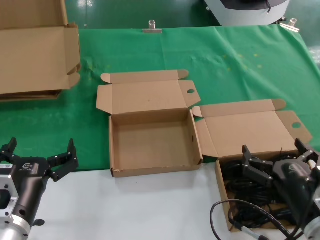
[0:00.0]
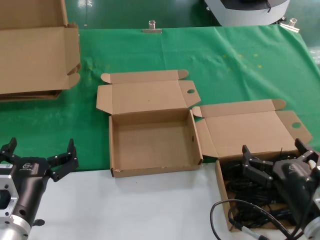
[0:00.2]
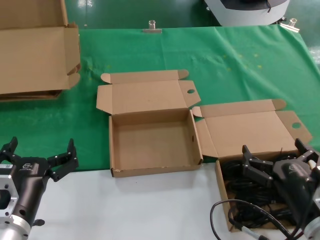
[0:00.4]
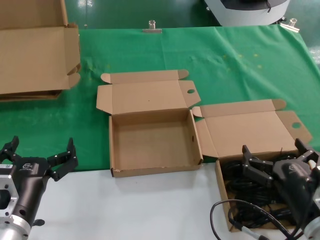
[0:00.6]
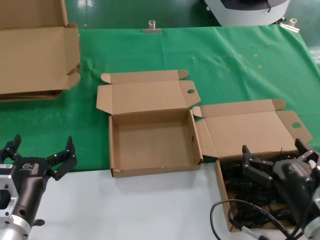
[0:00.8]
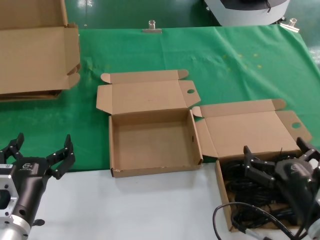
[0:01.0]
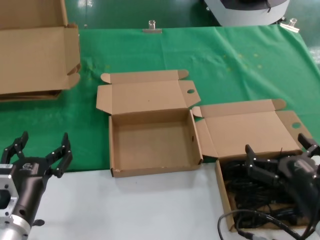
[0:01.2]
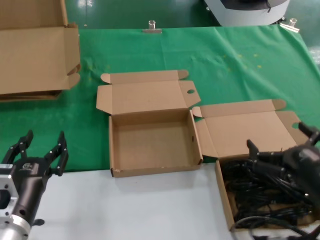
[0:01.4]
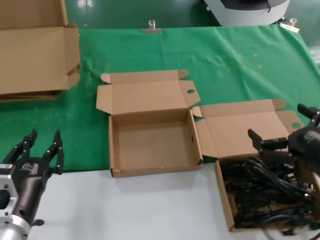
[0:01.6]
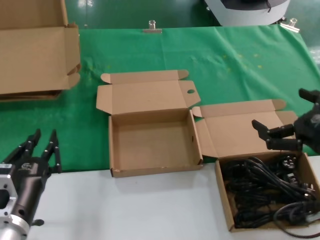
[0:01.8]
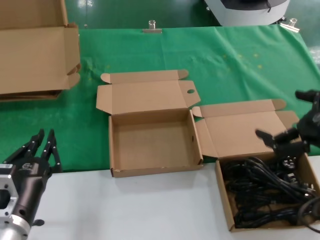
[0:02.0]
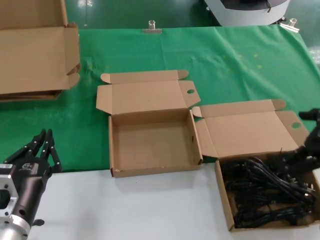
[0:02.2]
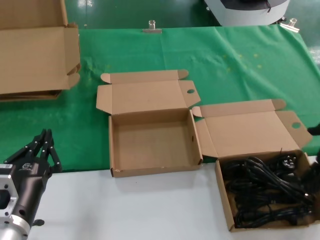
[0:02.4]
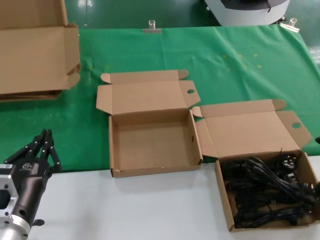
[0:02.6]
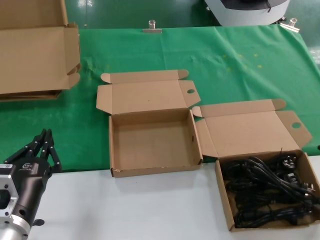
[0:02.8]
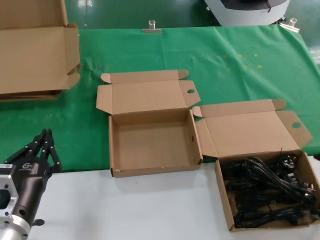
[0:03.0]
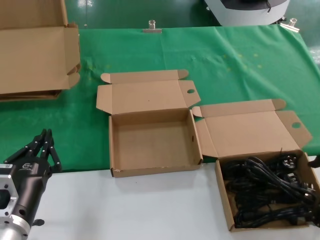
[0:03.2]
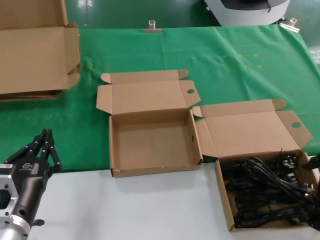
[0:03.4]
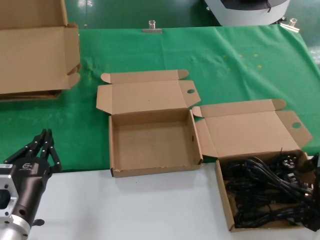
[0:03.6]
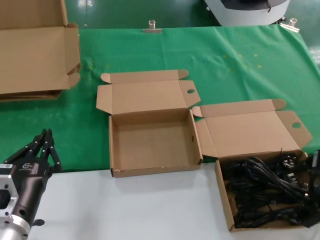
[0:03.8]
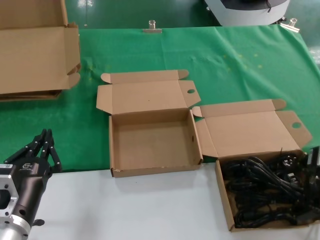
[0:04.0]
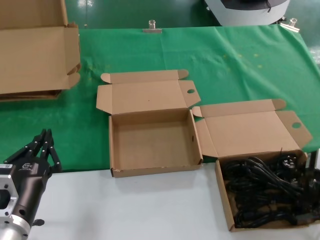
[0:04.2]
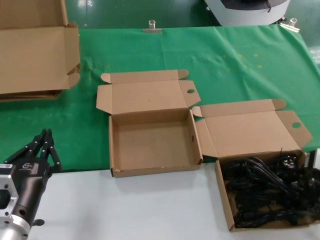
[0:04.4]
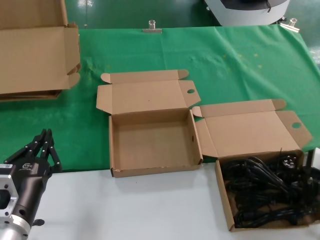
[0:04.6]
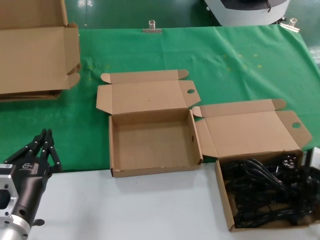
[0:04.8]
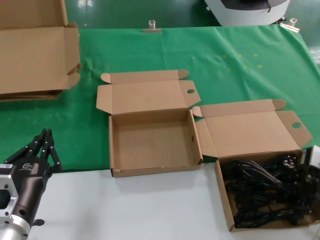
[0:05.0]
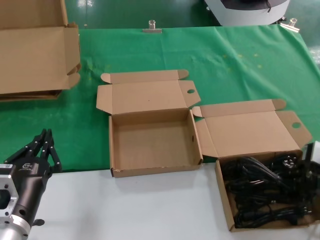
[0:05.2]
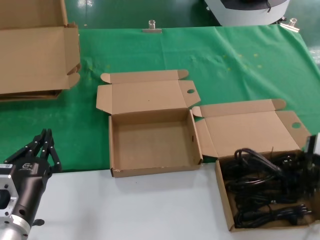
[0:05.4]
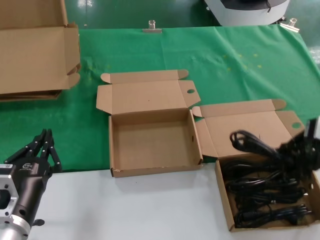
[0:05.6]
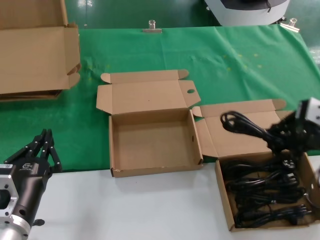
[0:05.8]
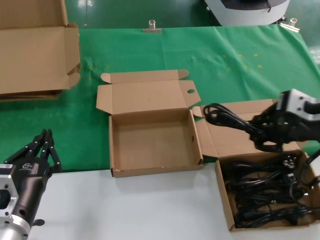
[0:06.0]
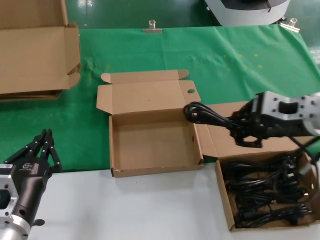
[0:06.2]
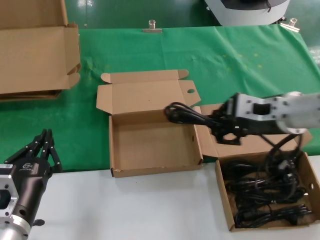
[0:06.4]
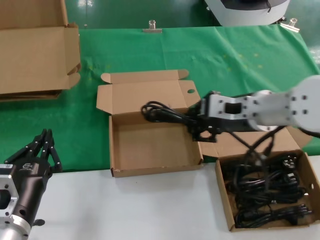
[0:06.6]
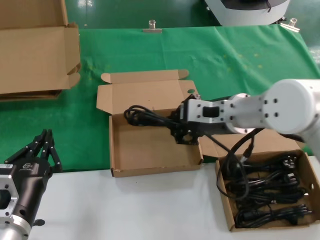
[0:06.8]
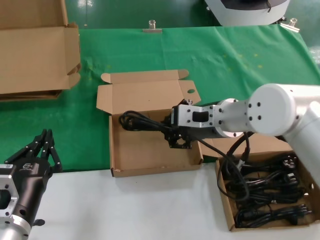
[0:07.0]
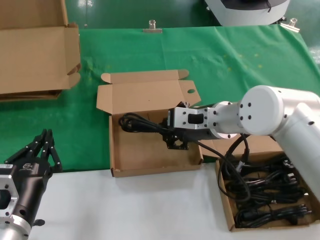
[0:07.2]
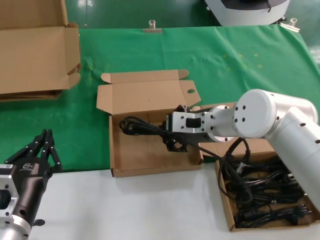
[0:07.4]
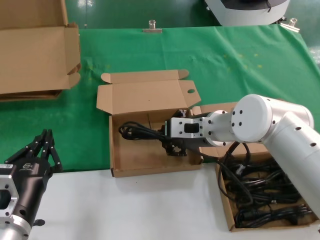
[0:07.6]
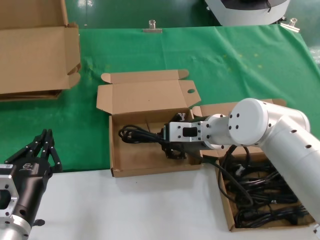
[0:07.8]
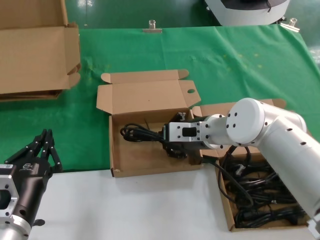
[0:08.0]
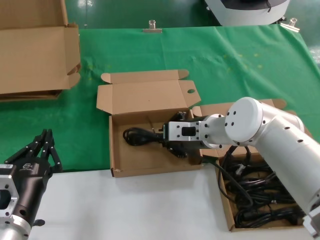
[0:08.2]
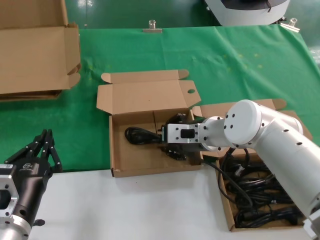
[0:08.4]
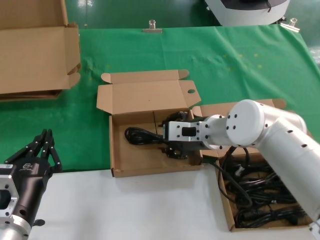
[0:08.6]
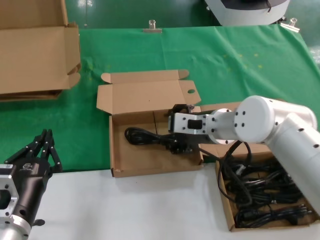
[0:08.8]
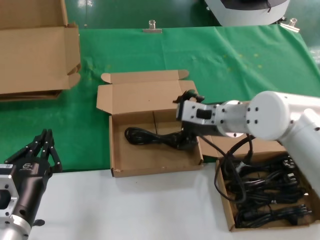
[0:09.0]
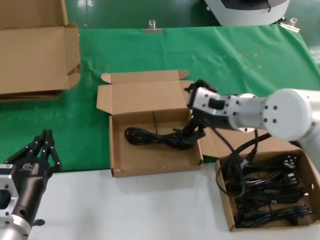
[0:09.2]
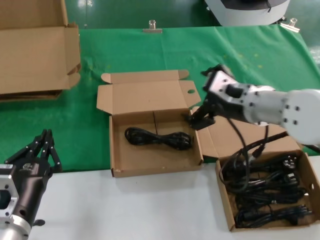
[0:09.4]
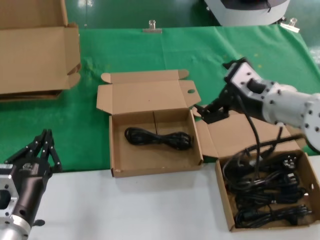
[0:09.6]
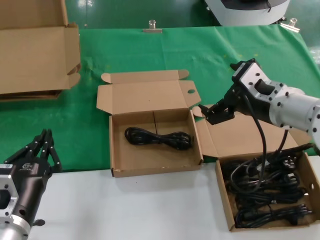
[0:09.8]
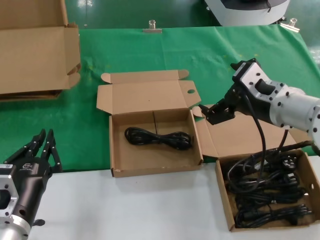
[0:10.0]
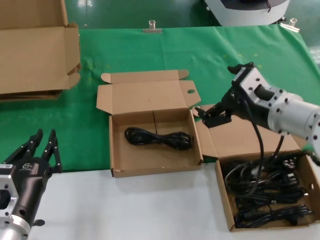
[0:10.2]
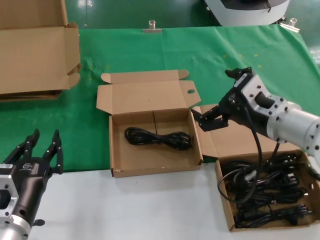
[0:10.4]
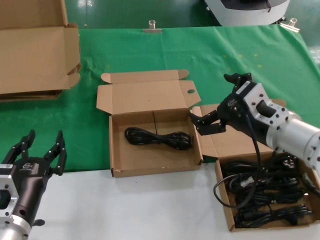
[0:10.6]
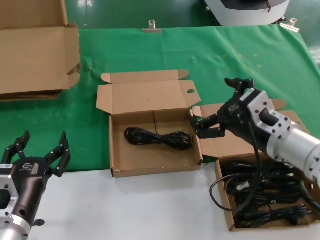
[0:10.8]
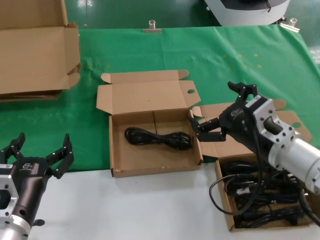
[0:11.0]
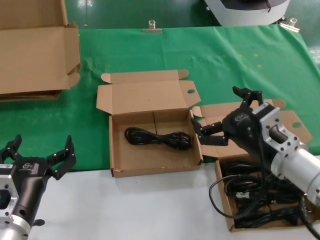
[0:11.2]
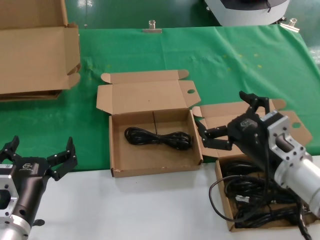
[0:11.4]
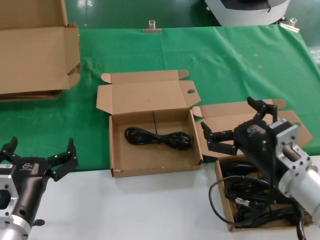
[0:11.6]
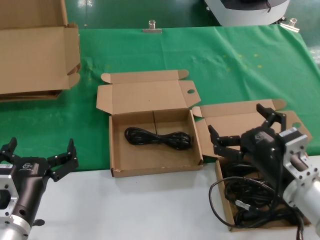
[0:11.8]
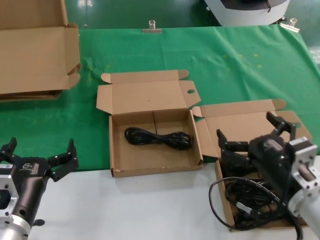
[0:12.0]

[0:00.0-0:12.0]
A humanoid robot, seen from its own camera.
Task of the whole recording: take the parts from the box containing them and put them into an empty box.
Step, 0:00.0 to 0:04.8: Grasp the data cable.
Step, 0:05.0 to 0:08.4: Place the data cable in the another box.
0:00.0 to 0:01.6: The right hand is displaced upward and to the right by roughly 10 cm.
0:01.6 to 0:03.0: The right hand moves upward and to the right, approximately 10 cm.
0:03.0 to 0:04.4: The right hand is displaced downward by about 5 cm.
0:04.4 to 0:06.0: The right hand moves upward and to the left, roughly 10 cm.
0:06.0 to 0:07.6: The right hand heads to the left, forward and downward, covering about 20 cm.
0:07.6 to 0:09.0: The hands stay close to where they were, moving slightly.
0:09.0 to 0:10.4: The right hand moves to the right and backward, approximately 10 cm.
0:10.4 to 0:12.0: The right hand moves downward and backward, approximately 15 cm.

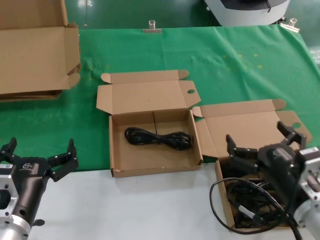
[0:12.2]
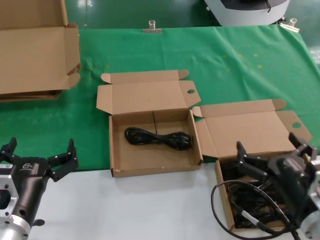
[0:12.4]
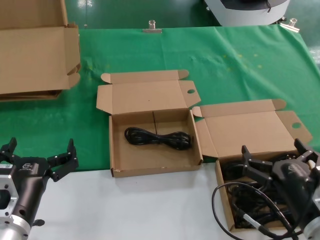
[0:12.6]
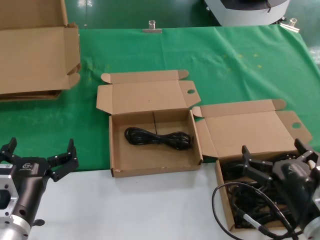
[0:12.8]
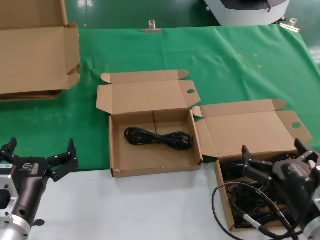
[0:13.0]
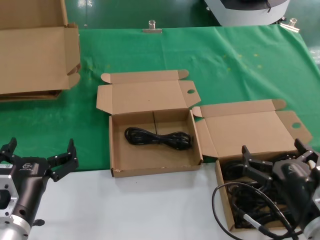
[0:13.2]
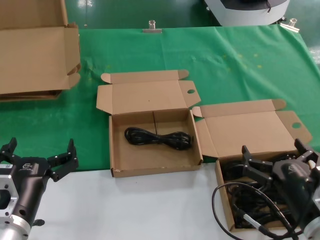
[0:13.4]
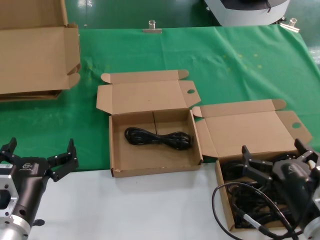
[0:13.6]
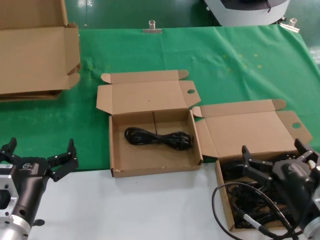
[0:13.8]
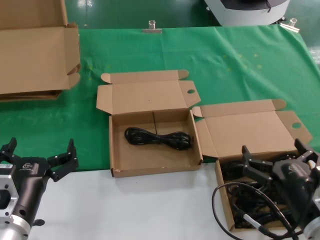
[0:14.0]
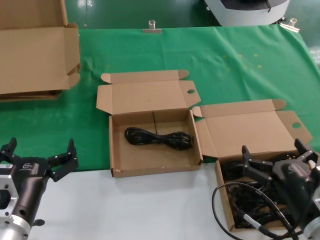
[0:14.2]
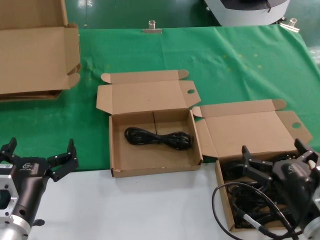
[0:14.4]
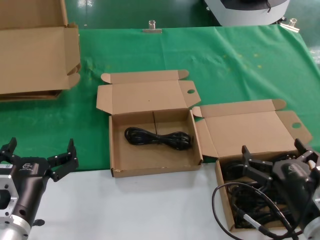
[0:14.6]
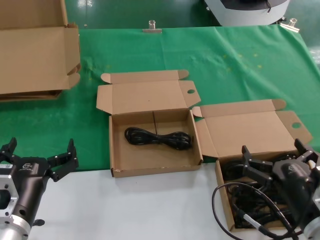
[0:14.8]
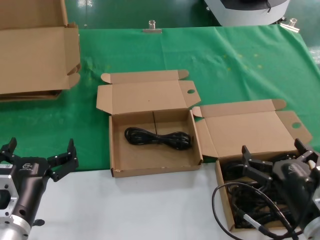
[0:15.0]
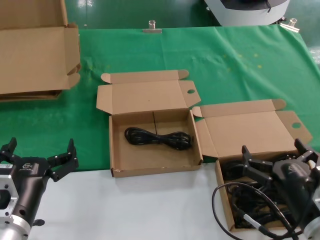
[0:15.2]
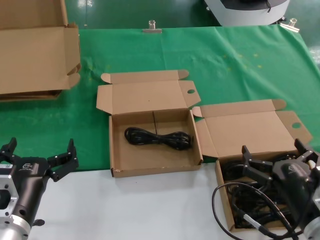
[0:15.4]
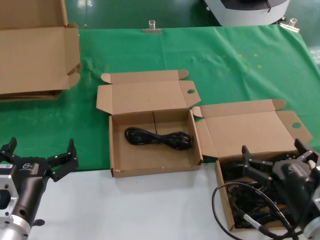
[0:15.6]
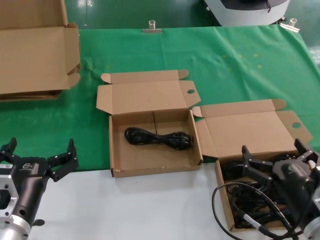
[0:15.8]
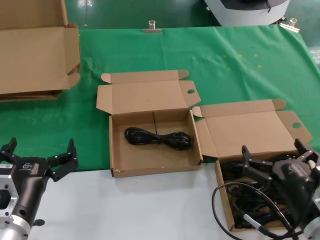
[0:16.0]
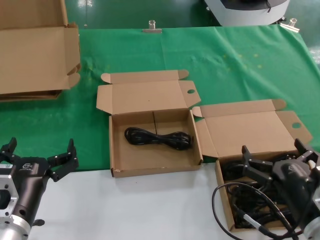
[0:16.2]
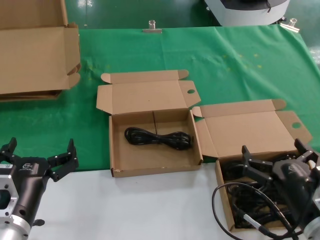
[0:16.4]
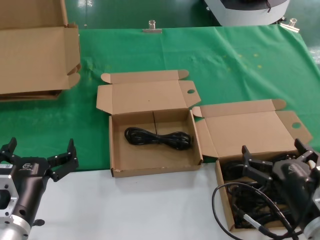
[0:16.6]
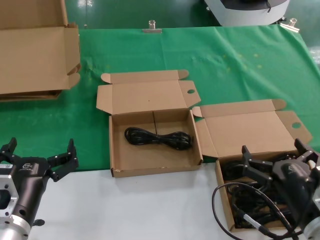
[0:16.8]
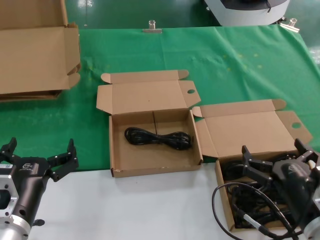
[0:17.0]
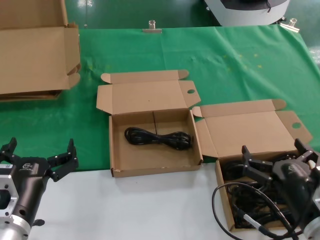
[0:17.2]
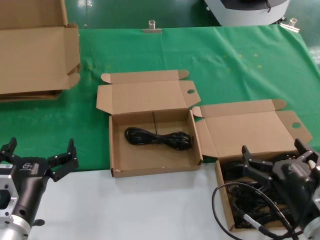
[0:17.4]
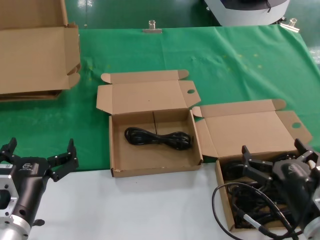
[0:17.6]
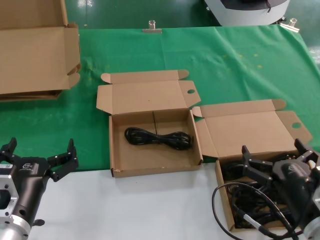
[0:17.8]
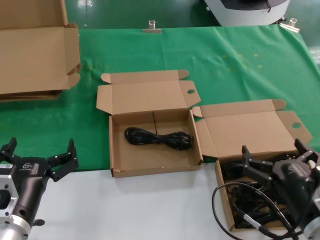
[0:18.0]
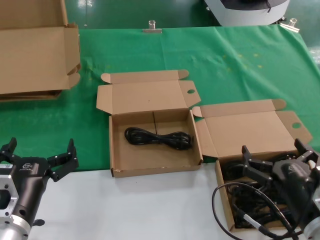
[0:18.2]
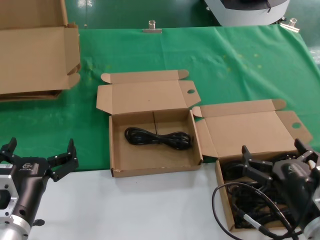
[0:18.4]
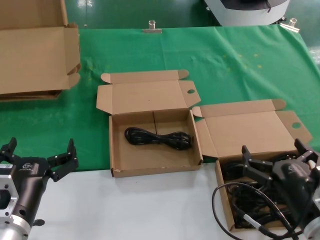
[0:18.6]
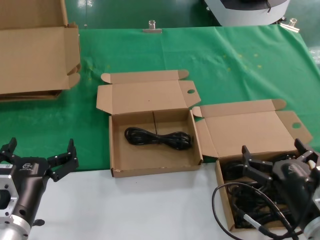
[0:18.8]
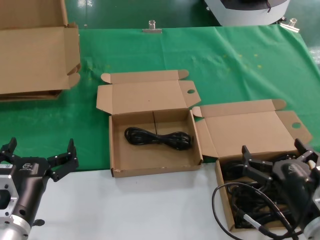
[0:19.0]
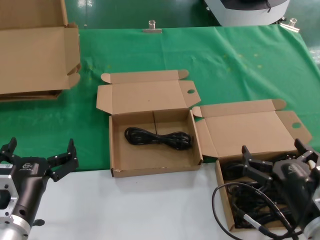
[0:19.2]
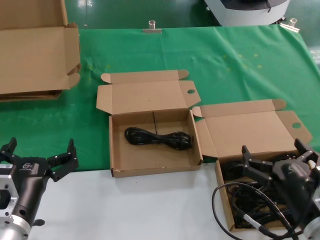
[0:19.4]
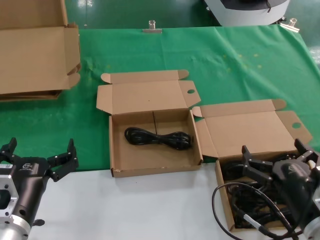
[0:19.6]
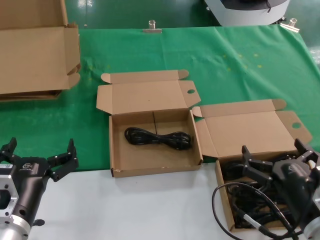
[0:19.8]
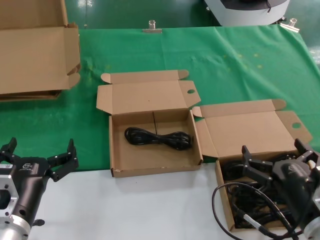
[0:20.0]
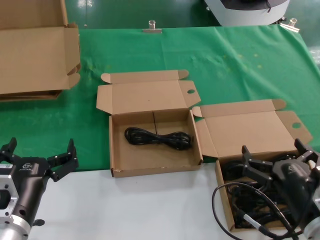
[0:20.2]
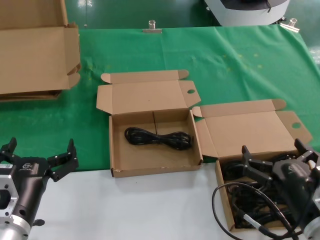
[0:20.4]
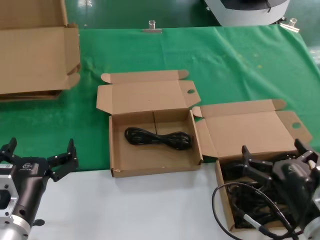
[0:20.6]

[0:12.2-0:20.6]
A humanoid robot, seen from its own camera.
Task of the whole recording: take the parts from the box containing them and put them into an empty box.
0:12.2 to 0:13.6: There are only small adjustments of the hands.
0:13.6 to 0:20.6: The two hands keep their place.

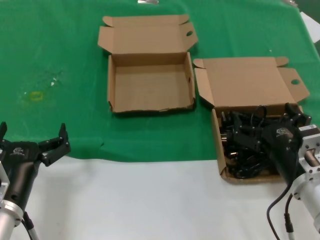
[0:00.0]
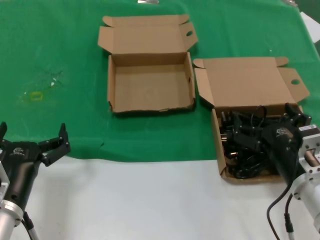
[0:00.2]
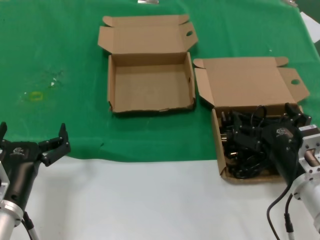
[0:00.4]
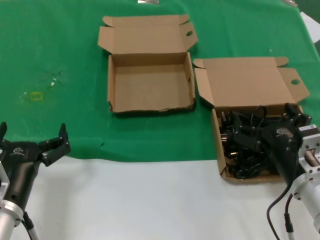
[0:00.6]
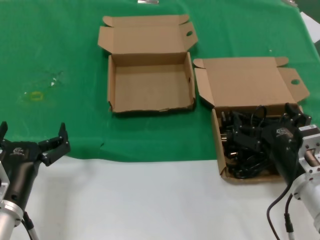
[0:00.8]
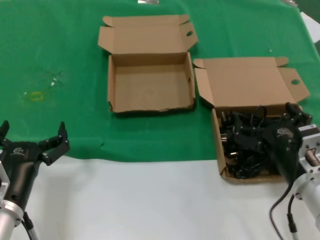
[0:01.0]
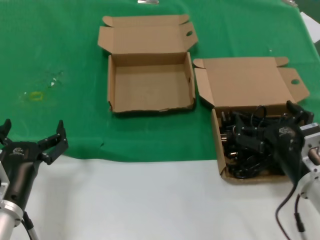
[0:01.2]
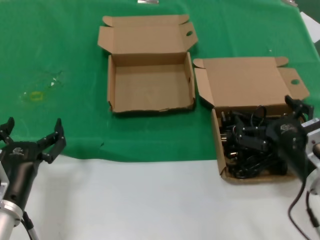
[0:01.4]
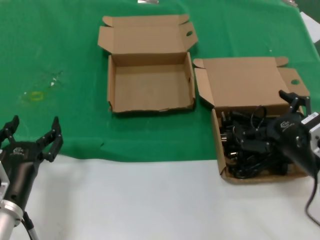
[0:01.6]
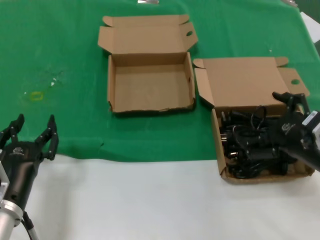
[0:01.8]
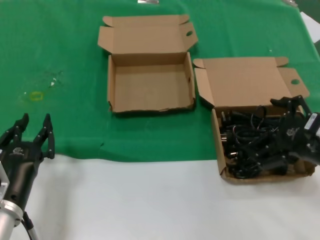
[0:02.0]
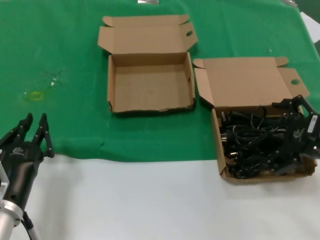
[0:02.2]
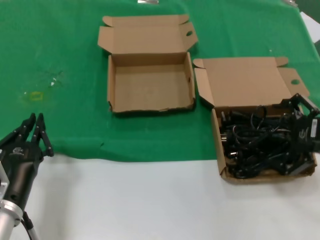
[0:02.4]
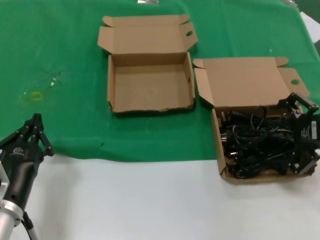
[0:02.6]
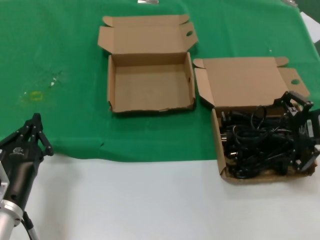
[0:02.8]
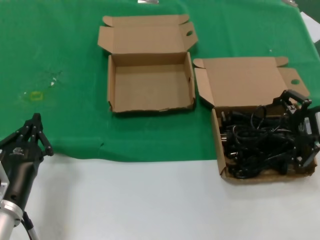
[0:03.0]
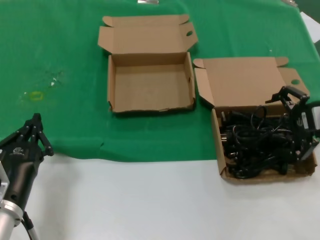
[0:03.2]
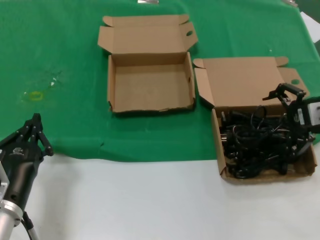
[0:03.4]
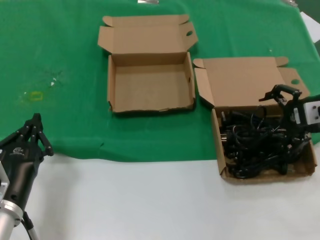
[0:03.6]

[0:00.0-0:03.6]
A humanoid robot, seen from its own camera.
Task of the whole recording: take the parts from the box containing them and put them into an empty box.
0:00.0 to 0:01.8: The right hand is displaced upward and to the right by about 10 cm.
0:01.8 to 0:03.6: The right hand travels forward, upward and to the right by approximately 15 cm.
